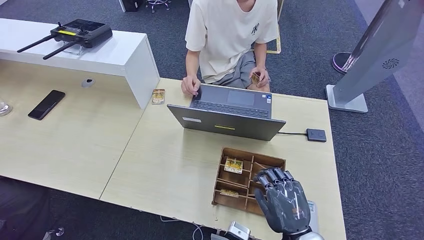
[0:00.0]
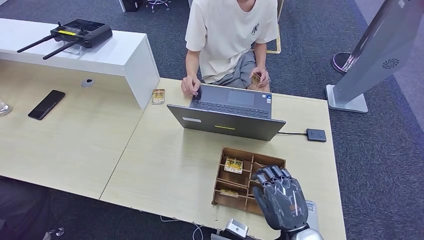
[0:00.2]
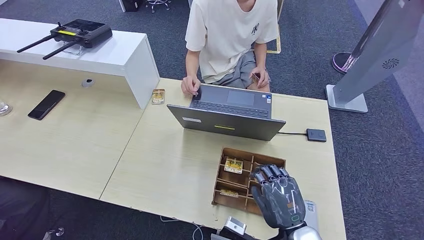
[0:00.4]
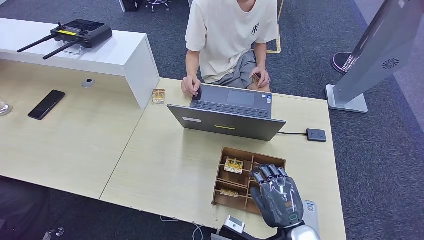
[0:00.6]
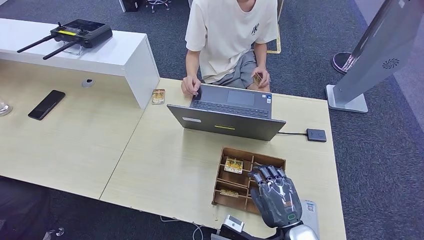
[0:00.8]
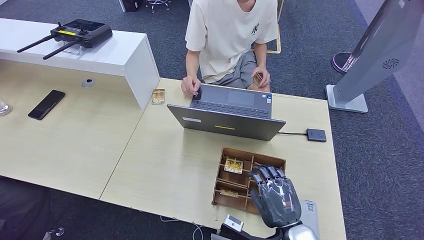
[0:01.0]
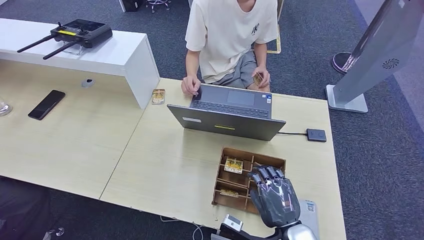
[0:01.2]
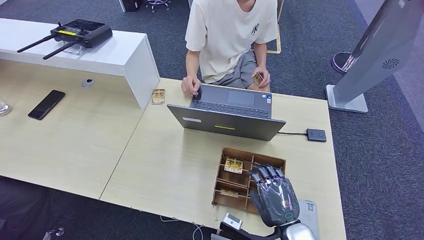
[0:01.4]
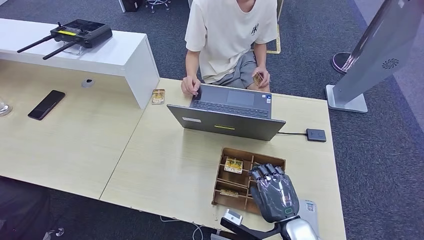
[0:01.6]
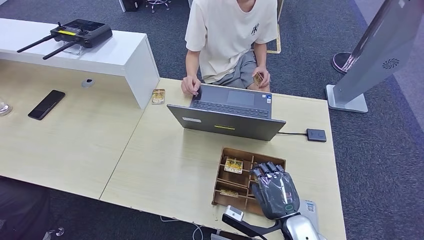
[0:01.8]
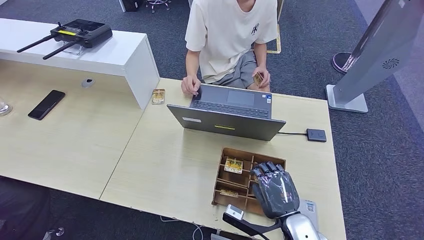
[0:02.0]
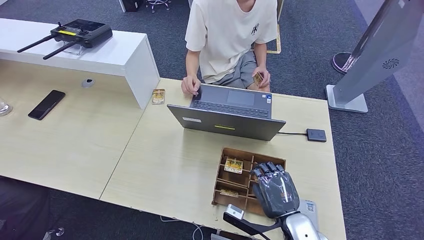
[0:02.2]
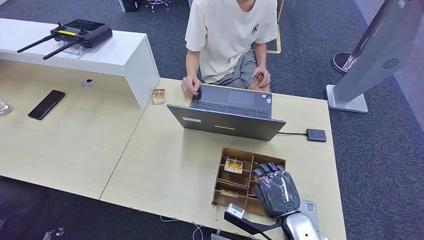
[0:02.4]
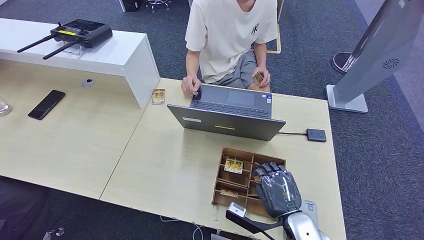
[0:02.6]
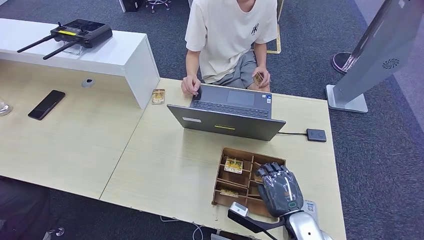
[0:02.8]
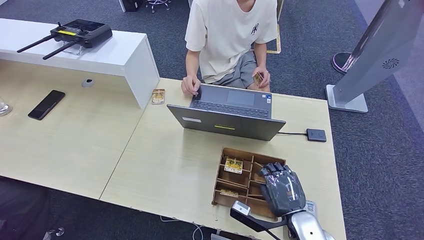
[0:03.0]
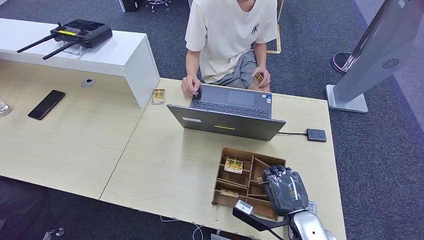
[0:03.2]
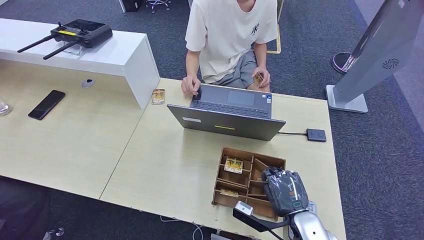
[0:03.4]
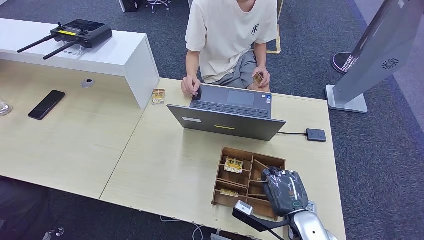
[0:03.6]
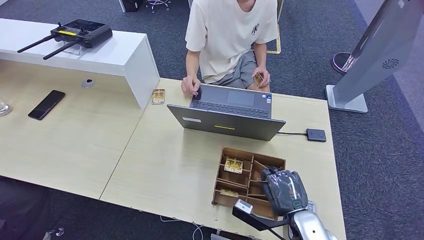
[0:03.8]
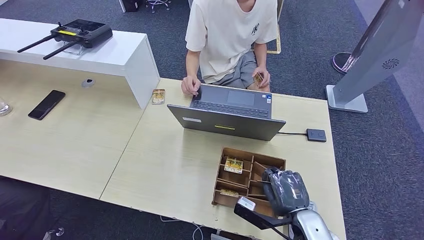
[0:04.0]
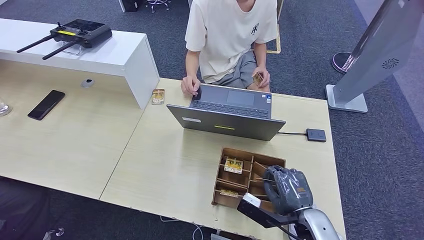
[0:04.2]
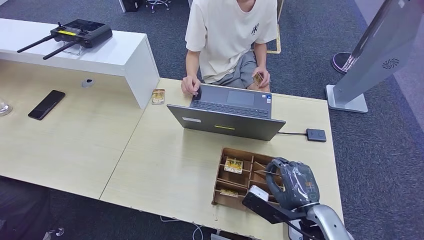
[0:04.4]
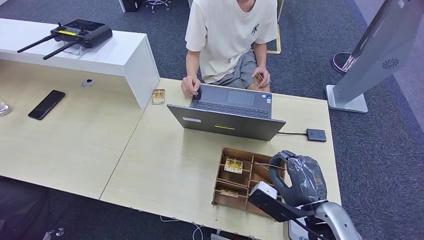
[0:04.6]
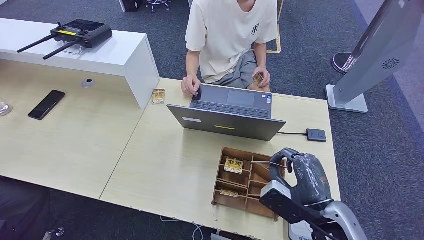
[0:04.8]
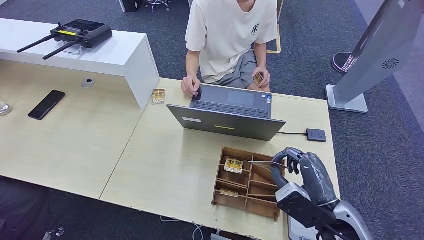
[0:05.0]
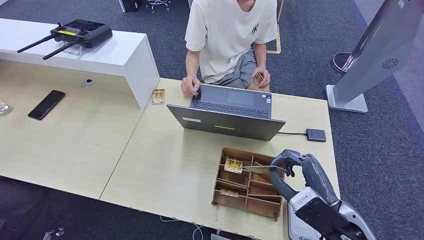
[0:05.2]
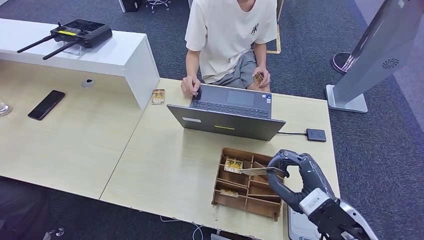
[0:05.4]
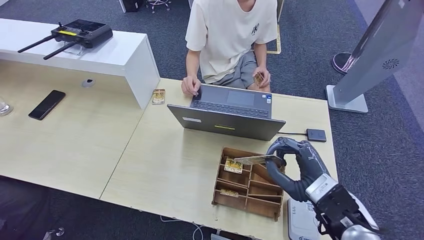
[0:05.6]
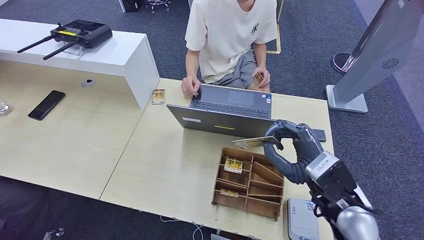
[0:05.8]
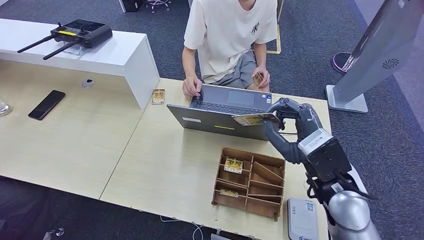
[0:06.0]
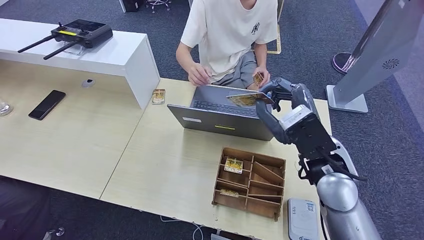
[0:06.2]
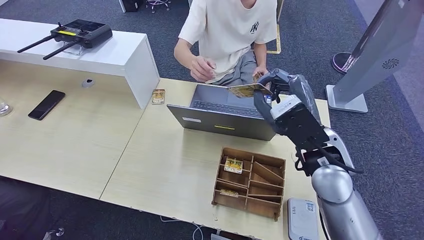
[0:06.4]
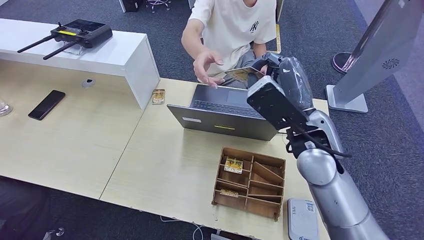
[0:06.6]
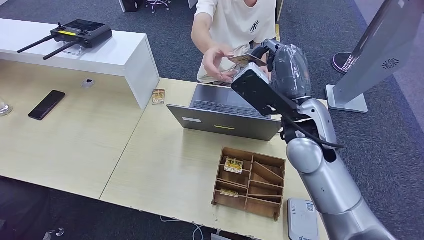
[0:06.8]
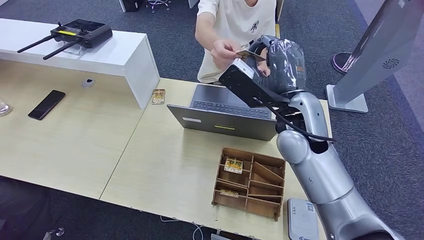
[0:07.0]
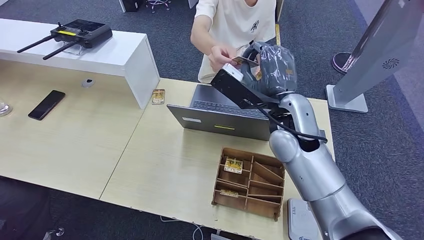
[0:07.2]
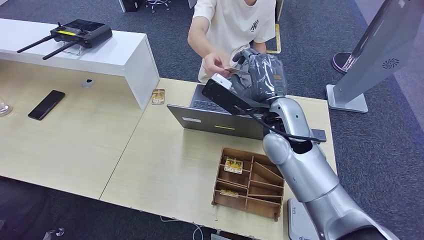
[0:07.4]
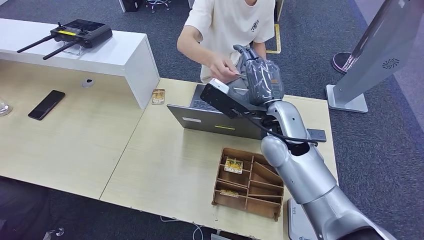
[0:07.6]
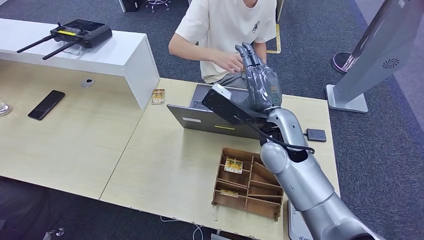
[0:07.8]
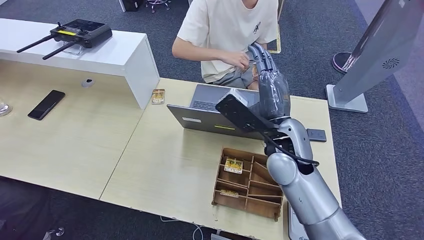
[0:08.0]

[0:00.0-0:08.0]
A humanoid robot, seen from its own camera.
Step, 0:00.0 to 0:04.6: Pick up the room key from the key card box.
Step, 0:05.0 to 0:08.0: Hand the room key to the person.
0:00.0 to 0:03.2: The hands make only small movements.
0:03.2 to 0:04.8: The right hand moves upward, roughly 10 cm.
0:04.8 to 0:06.4: The right hand goes about 15 cm upward, forward and to the left.
0:06.4 to 0:08.0: The right hand travels to the left by roughly 5 cm.
